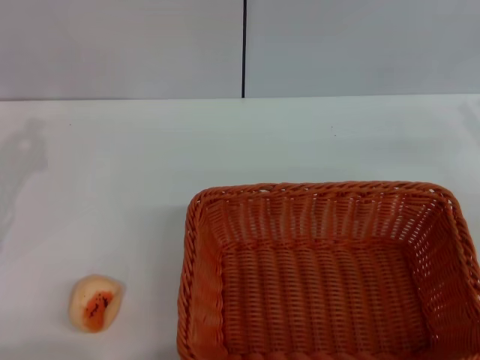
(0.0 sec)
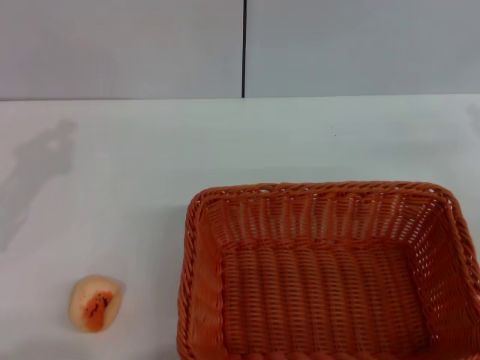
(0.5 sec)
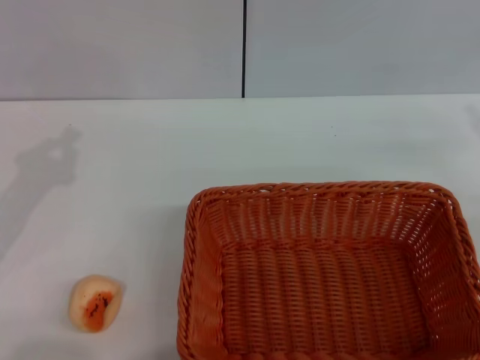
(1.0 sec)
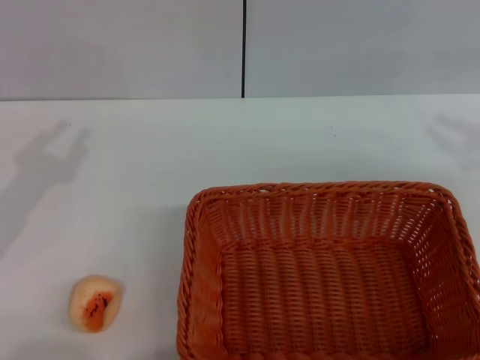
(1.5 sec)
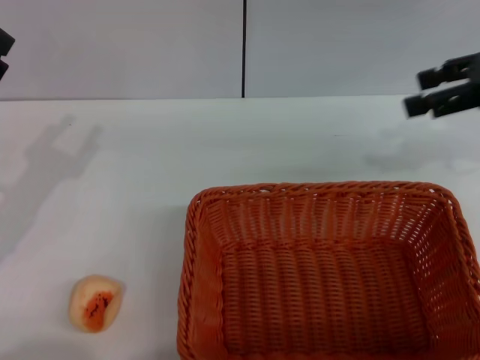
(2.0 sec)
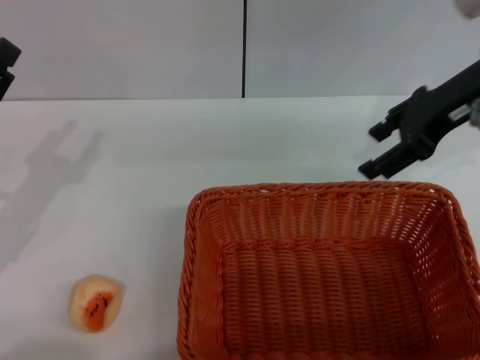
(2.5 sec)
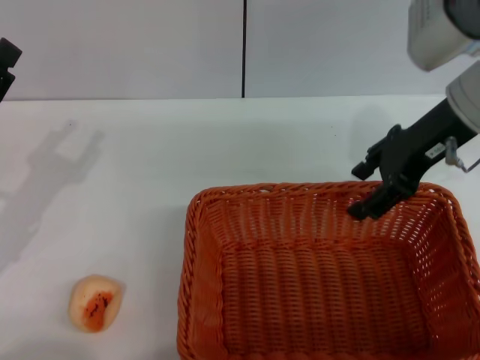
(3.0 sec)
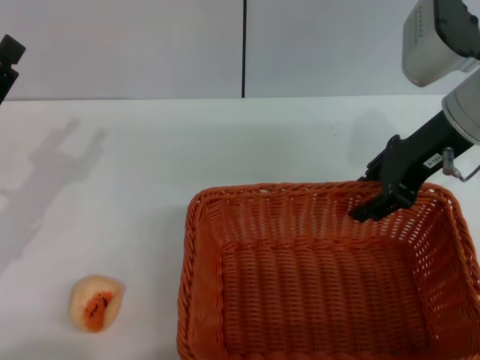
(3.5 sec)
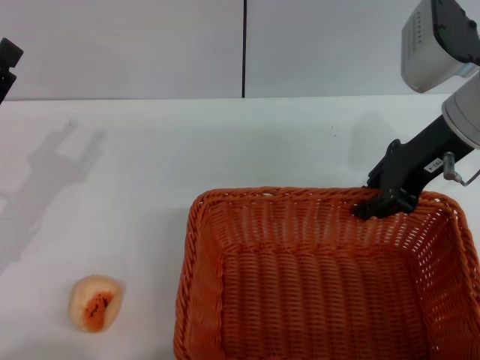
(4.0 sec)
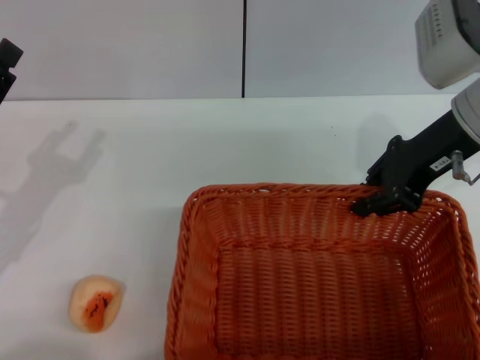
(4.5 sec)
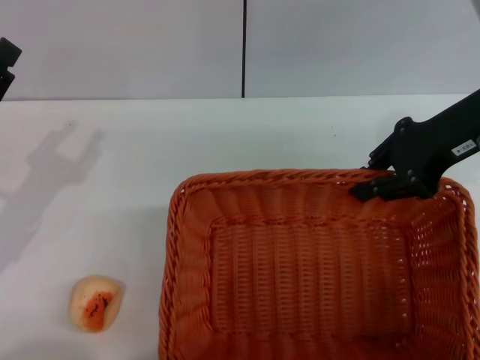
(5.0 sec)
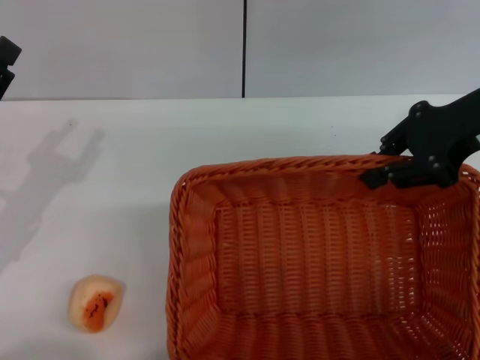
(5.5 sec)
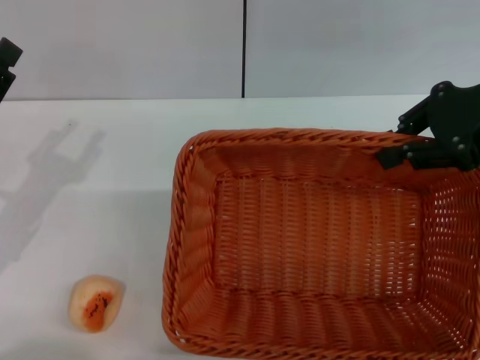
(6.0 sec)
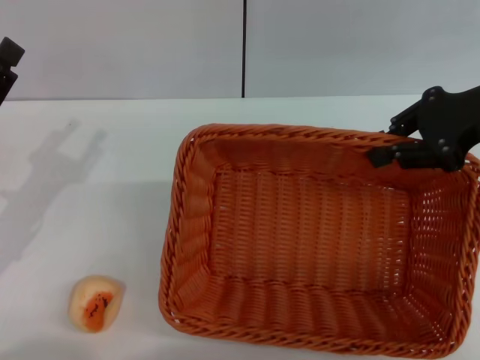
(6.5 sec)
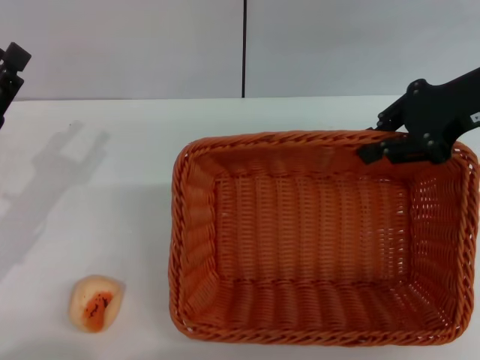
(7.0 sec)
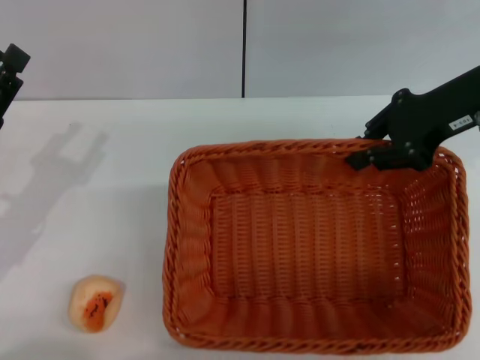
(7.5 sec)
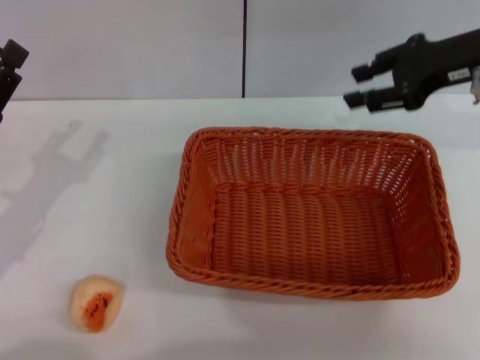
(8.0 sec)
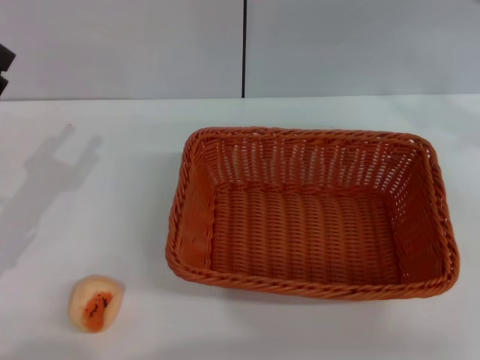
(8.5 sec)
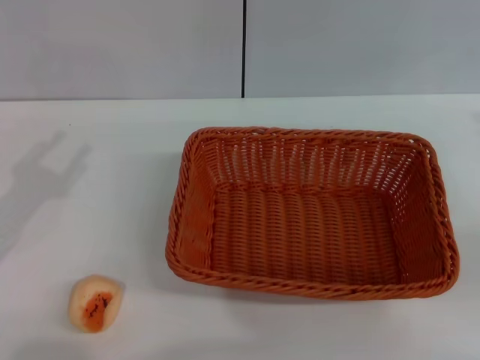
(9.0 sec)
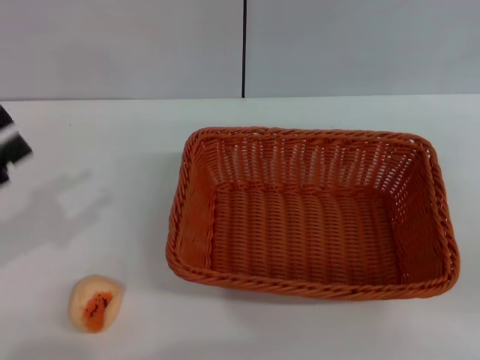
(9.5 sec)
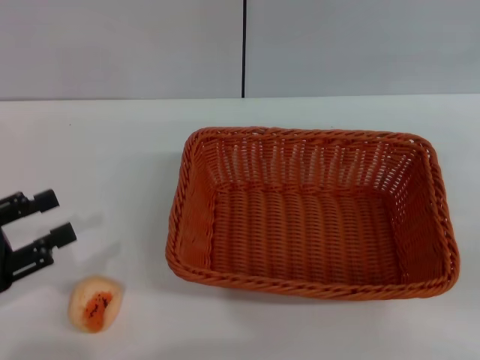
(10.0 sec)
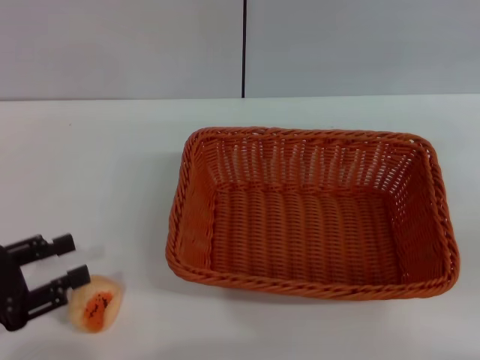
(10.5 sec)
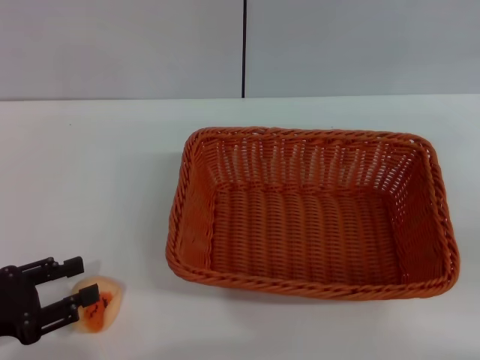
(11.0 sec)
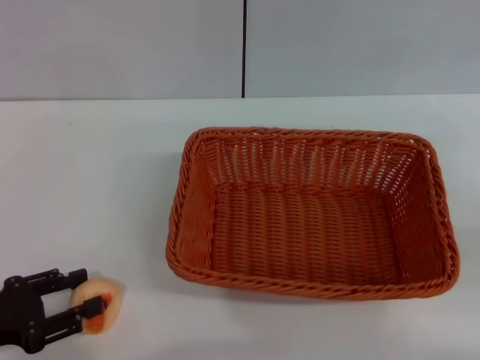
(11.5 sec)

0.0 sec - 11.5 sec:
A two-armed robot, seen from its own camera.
Step, 0.0 sec - 7.5 sec: Move the basket to the center of view with the right gripper.
0.0 sec - 2.0 sec: The right gripper is displaced upward, forward and to the left by about 20 cm.
2.0 sec - 4.0 sec: The right gripper shifts roughly 10 cm to the left and downward, and closes its fingers.
4.0 sec - 6.0 sec: The right gripper heads to the right and upward, covering approximately 10 cm.
6.0 sec - 7.5 sec: The grippers stay close to where they were, moving slightly.
7.5 sec - 9.5 sec: The right gripper heads to the right, backward and downward, covering roughly 20 cm, and opens up, while the left gripper shifts roughly 5 cm to the left.
9.5 sec - 11.5 sec: The left gripper shifts about 5 cm downward.

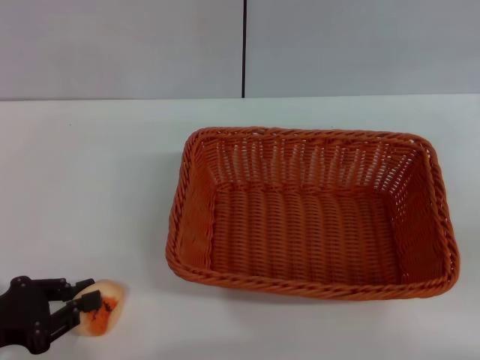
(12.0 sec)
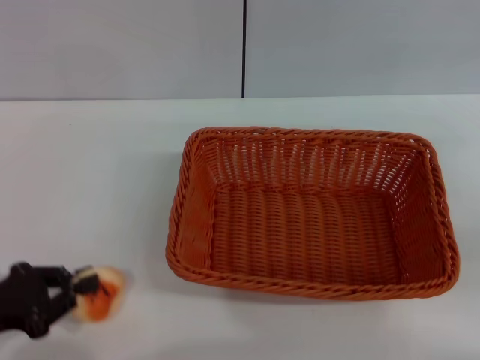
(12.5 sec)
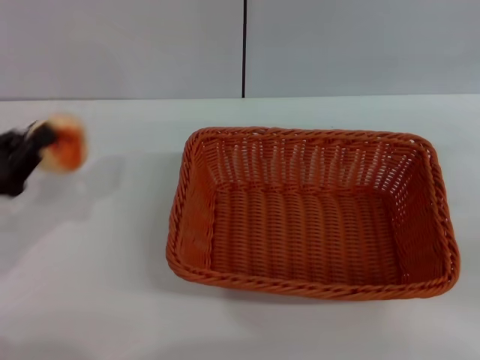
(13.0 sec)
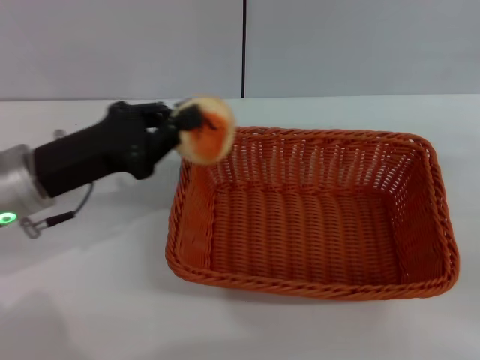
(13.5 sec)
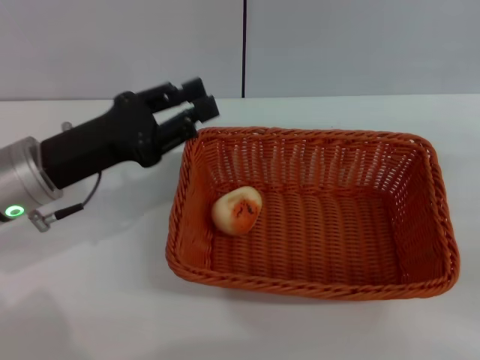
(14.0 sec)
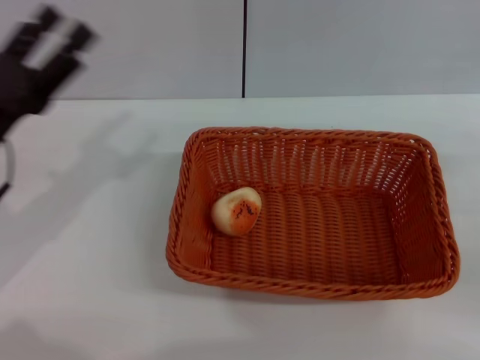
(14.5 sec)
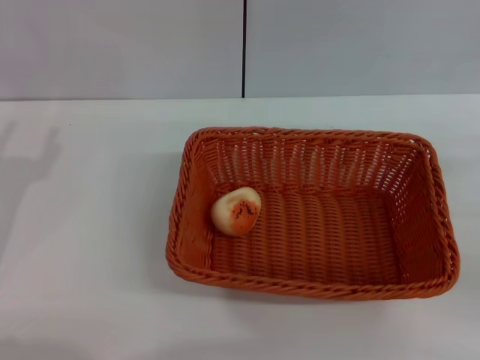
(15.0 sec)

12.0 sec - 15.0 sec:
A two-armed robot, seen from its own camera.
Step, 13.0 sec - 14.5 sec: Place the egg yolk pastry into the basket with the left gripper.
12.0 sec - 13.5 sec: The left gripper travels forward, to the right and upward by approximately 15 cm, and closes up.
13.5 sec - 15.0 sec: The left gripper shifts roughly 10 cm to the left and backward, and opens its fingers.
